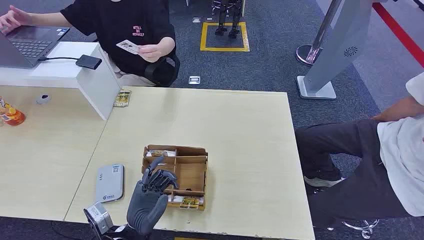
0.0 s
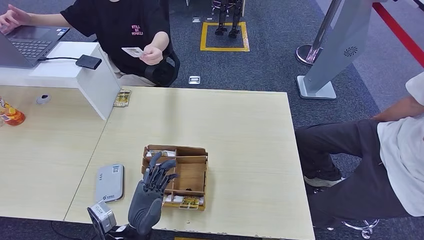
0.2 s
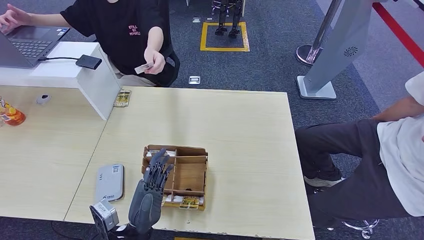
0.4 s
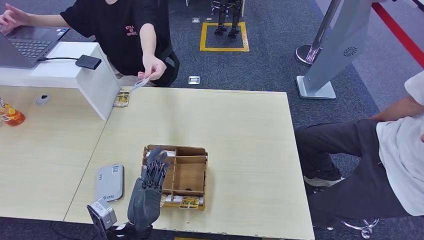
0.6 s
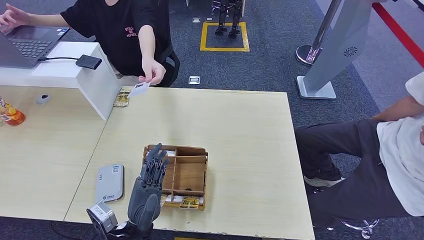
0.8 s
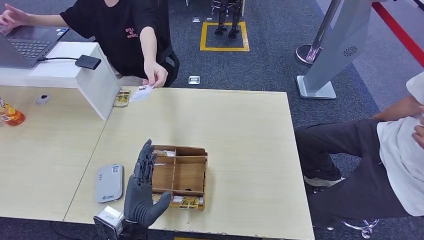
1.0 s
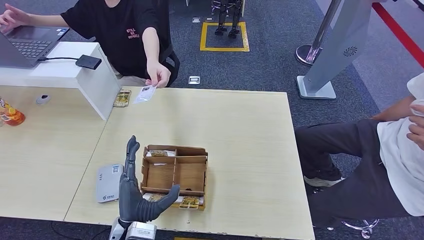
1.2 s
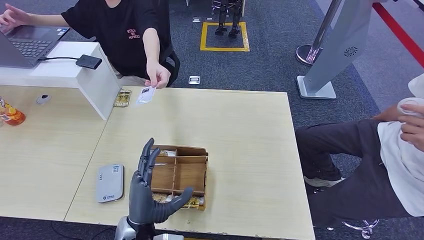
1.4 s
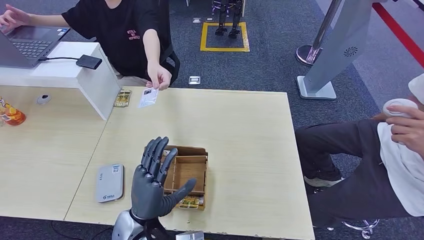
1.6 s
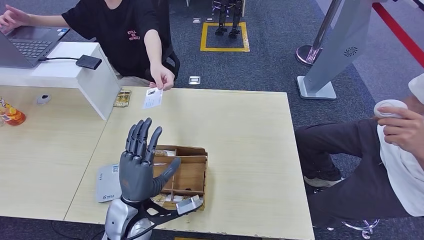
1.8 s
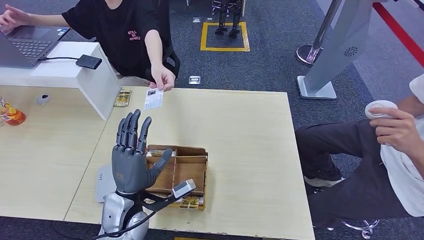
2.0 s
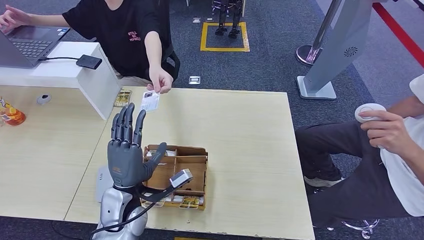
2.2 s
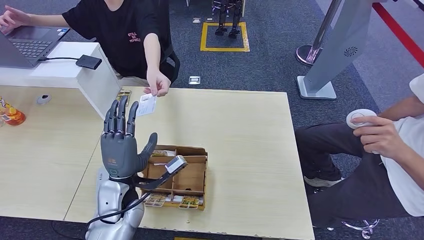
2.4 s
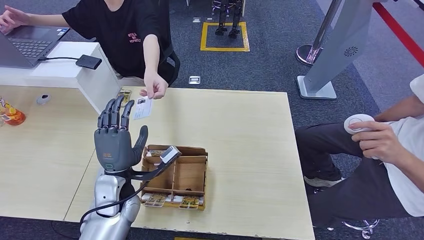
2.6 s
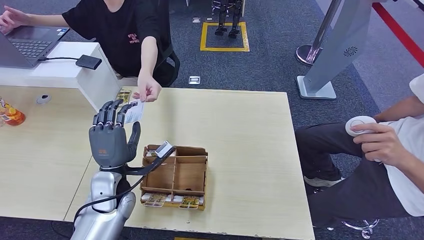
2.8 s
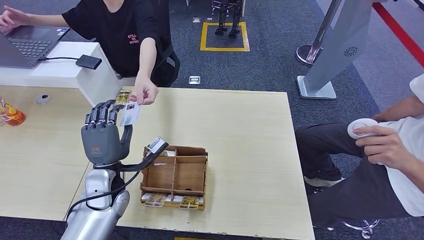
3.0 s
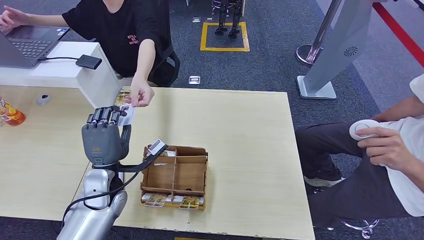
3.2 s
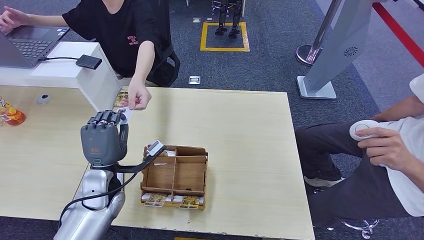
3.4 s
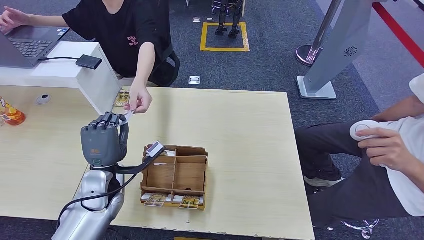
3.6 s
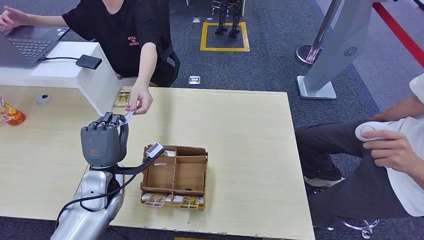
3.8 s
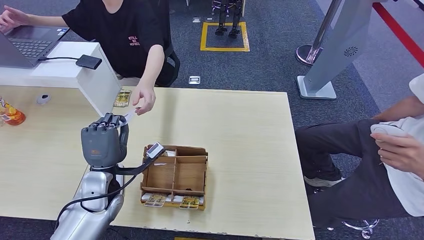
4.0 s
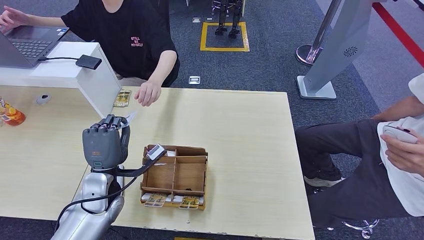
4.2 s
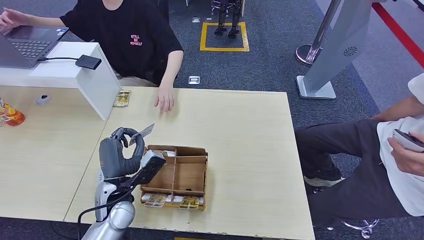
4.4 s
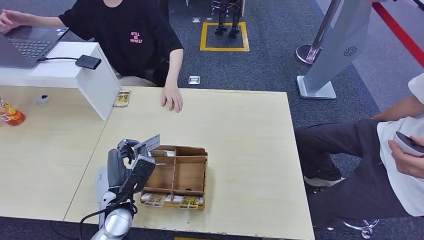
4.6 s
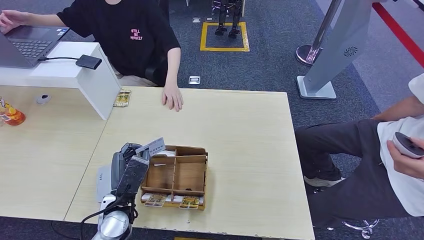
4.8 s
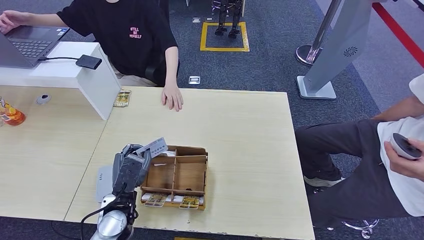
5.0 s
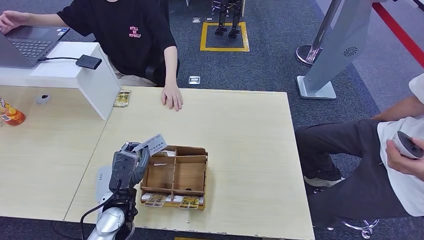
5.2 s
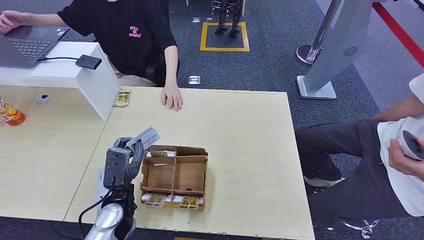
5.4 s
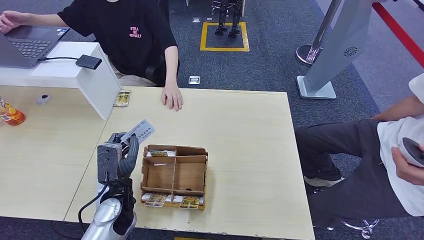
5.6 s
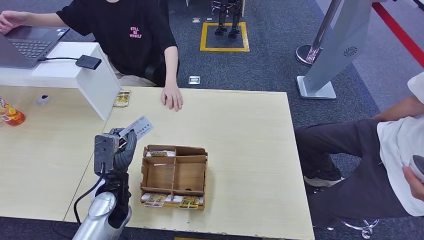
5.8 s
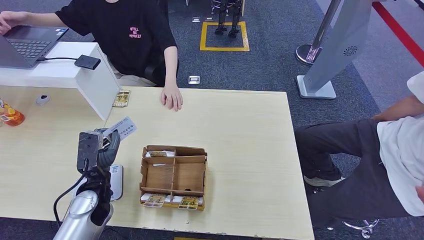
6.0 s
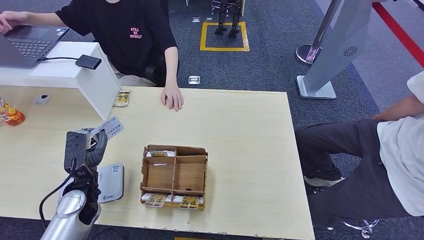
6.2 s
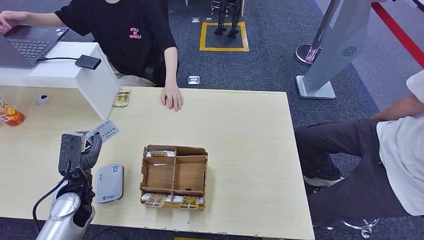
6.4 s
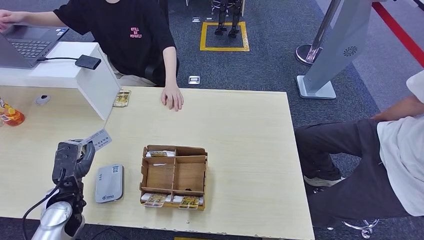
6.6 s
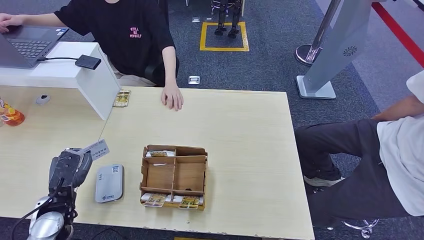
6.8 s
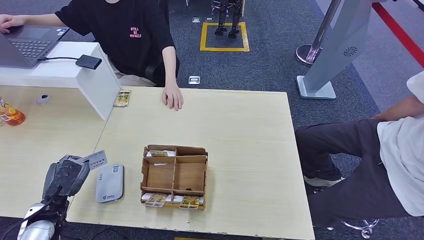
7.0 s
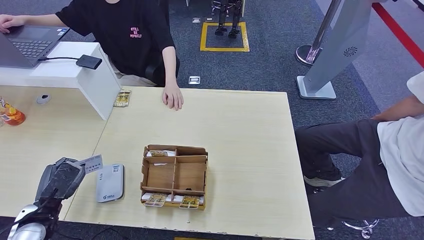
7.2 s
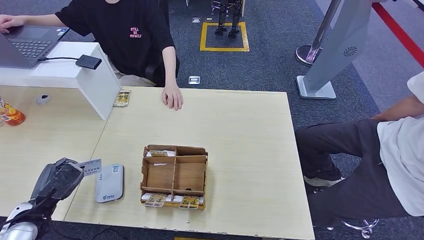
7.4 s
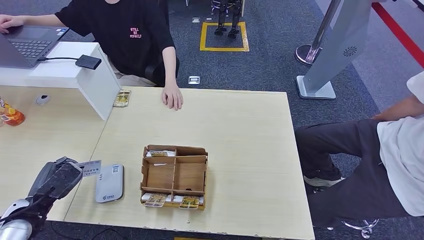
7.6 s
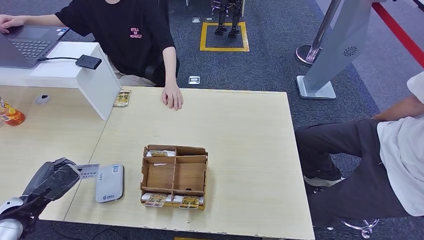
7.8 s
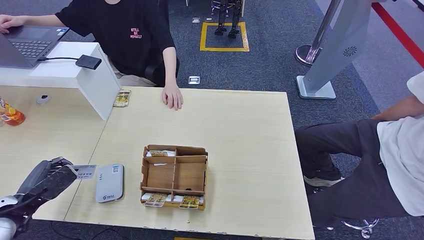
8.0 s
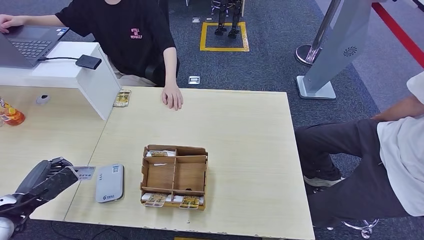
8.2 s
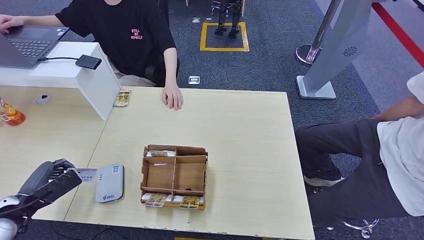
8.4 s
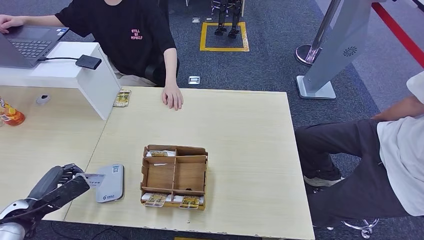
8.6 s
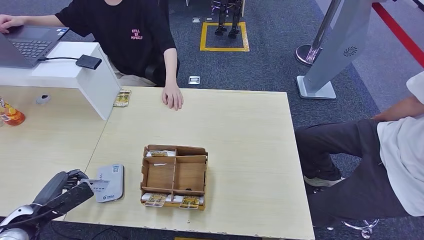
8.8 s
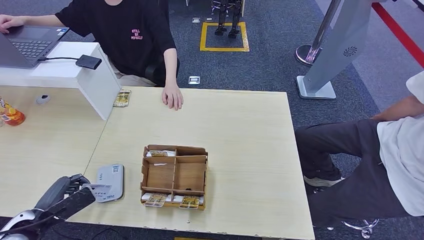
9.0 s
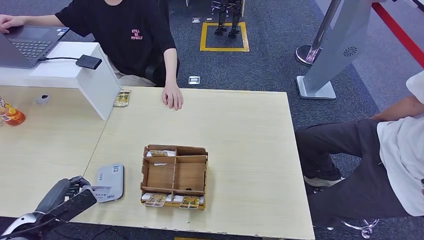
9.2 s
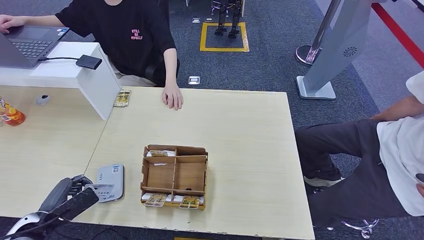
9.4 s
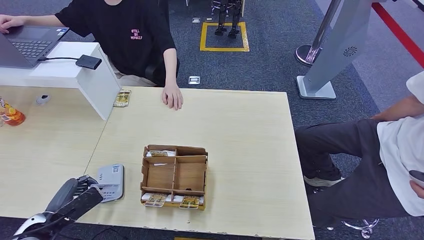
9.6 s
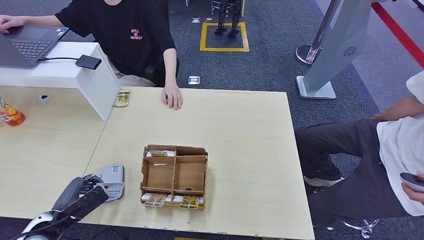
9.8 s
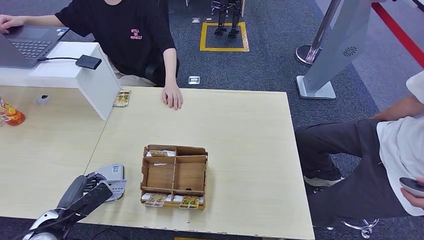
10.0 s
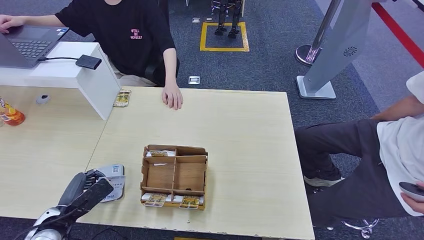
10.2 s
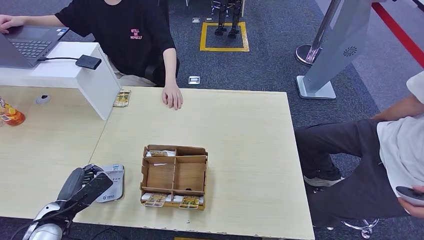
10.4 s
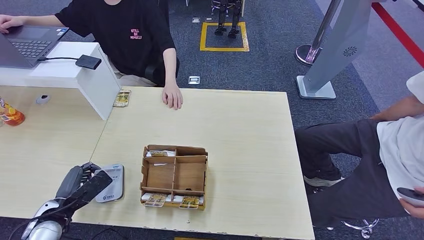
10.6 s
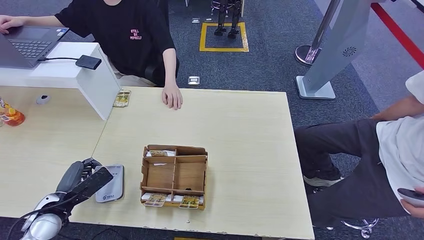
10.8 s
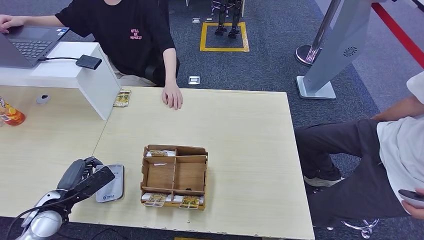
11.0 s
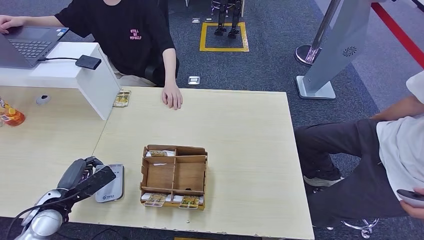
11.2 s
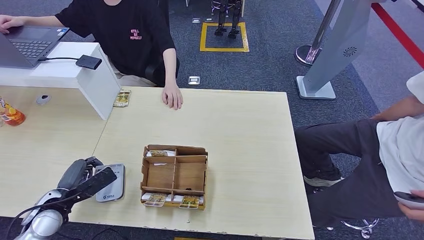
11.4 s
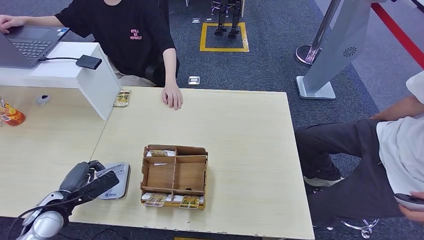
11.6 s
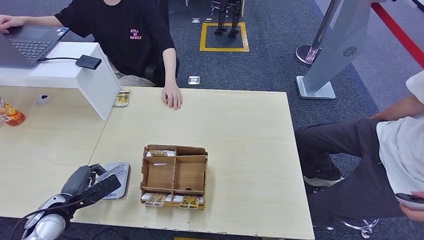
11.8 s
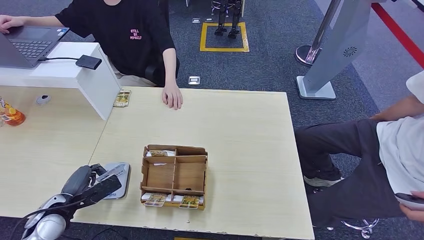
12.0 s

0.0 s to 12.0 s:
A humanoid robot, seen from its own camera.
Step, 0.0 to 4.0 s: Take the ID card from the person's hand.
Step, 4.2 to 10.0 s: Place the ID card on the card reader.
1.6 to 3.0 s: The left hand travels forward and to the left by some 15 cm.
3.0 to 4.4 s: The hands make only small movements.
4.4 to 6.0 s: The right hand goes some 5 cm backward.
6.0 to 7.6 s: The left hand shifts approximately 15 cm to the left.
7.6 to 9.0 s: The hands stay close to where they were, moving slightly.
9.0 to 10.4 s: The left hand travels to the right by approximately 5 cm.
10.4 to 12.0 s: The right hand goes roughly 5 cm forward.

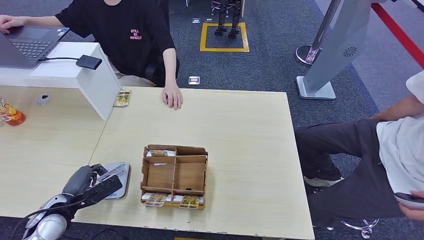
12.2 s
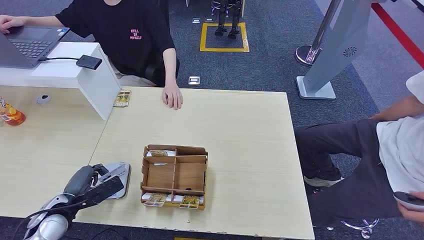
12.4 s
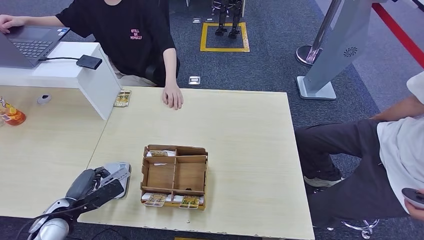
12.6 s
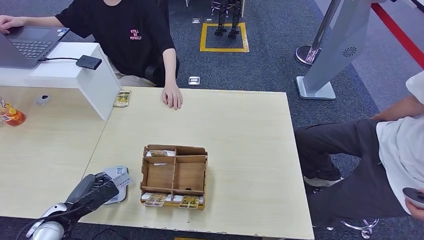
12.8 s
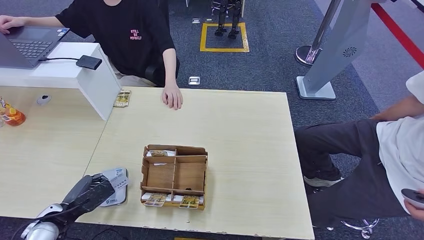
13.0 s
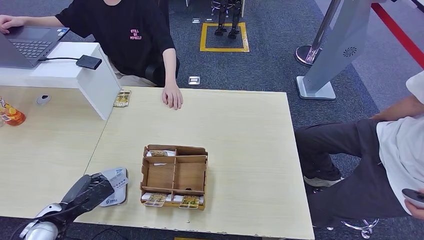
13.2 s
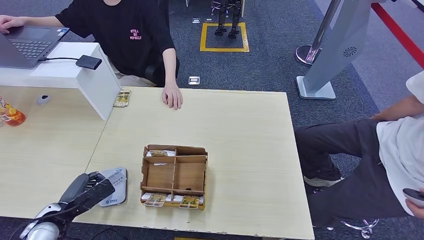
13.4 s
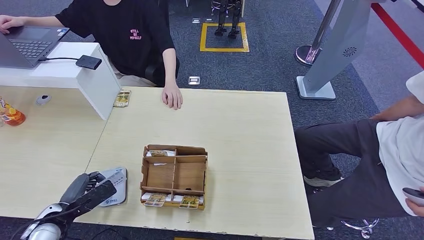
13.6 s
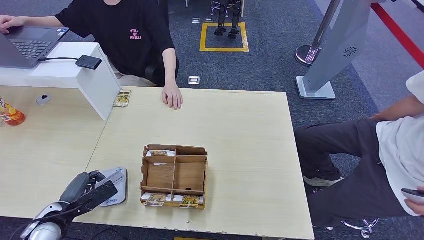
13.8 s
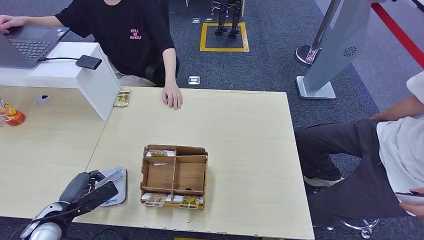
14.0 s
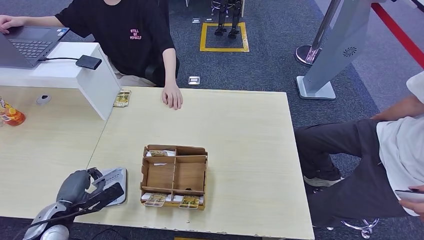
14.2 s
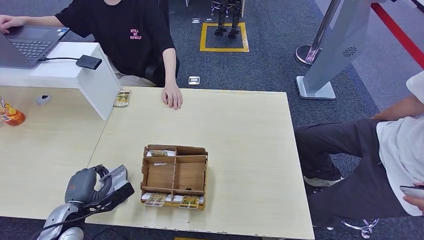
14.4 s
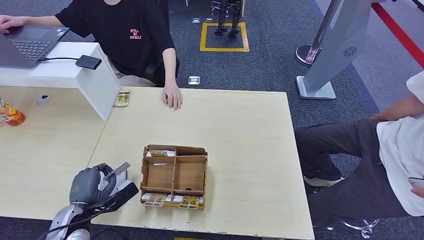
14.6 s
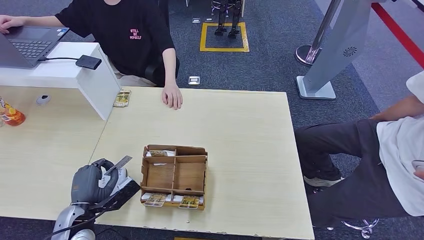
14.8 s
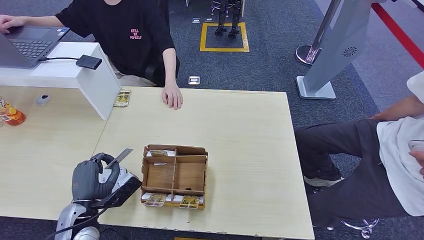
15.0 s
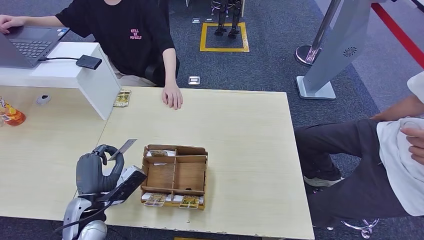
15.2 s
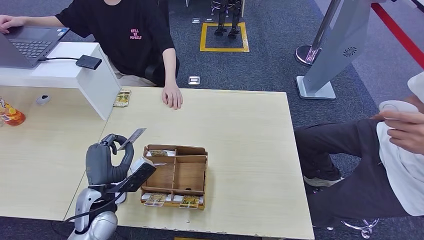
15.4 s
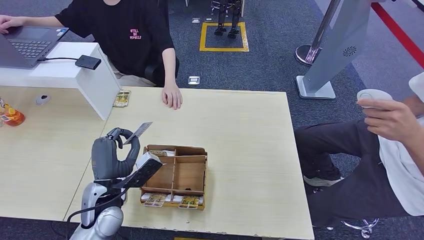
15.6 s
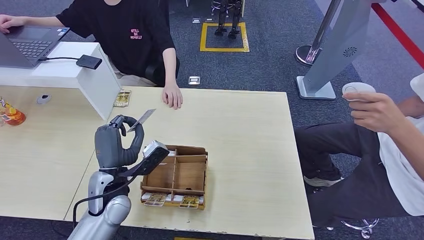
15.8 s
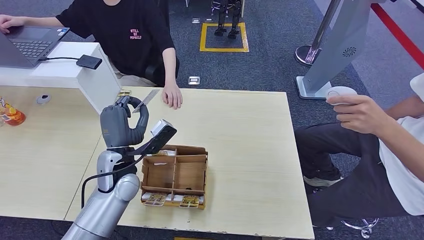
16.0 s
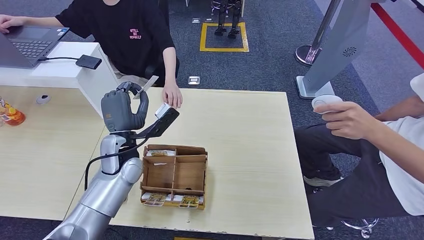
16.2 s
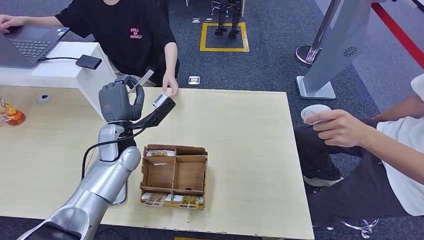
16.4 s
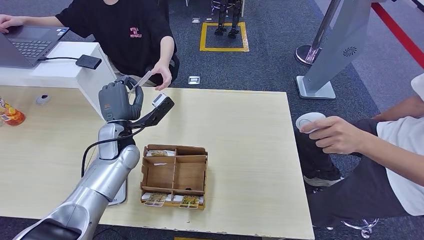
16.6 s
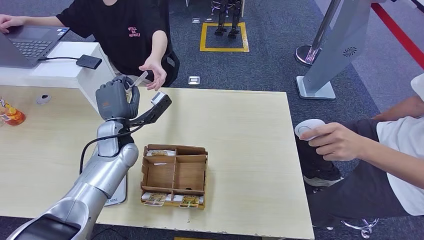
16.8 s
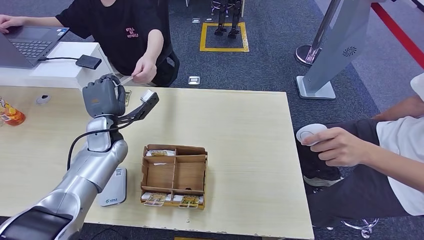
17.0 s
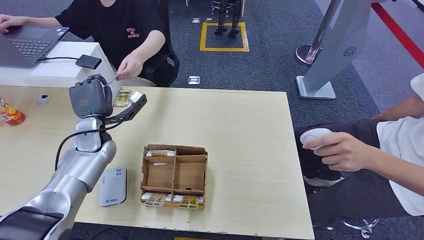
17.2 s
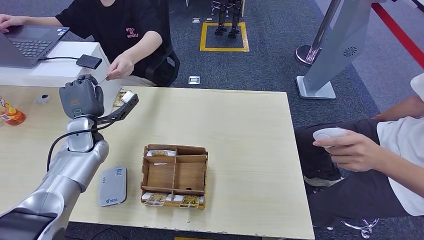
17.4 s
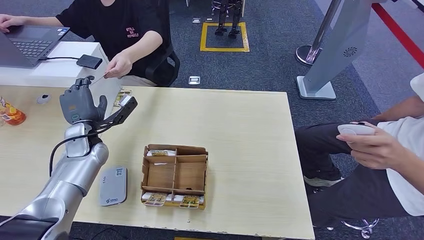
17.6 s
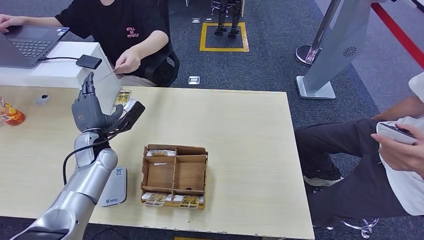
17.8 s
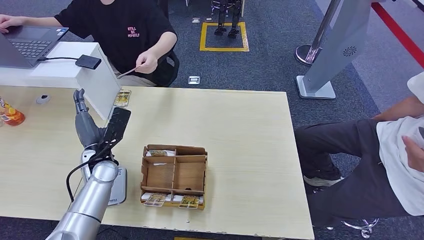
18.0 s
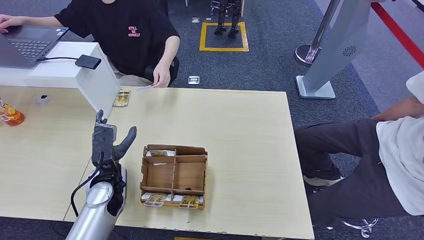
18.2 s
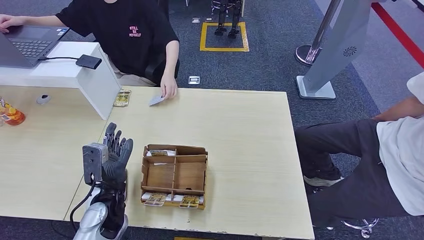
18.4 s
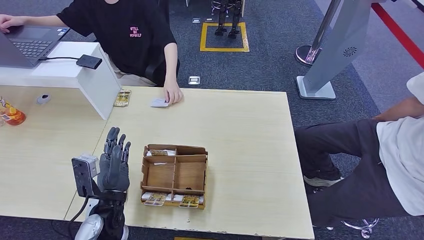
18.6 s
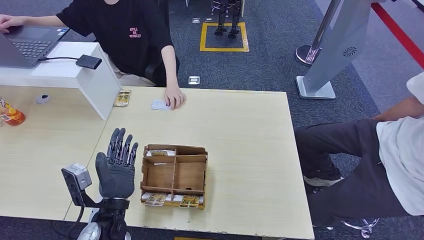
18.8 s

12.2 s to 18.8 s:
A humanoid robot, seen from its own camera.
Step, 12.2 to 18.0 s: Hand the ID card to the person.
12.2 to 13.8 s: The hands stay close to where they were, moving slightly.
13.8 to 15.4 s: The left hand heads to the right, covering roughly 15 cm.
15.4 to 17.2 s: The left hand goes approximately 15 cm forward.
17.2 to 18.8 s: The left hand travels backward by about 20 cm.
